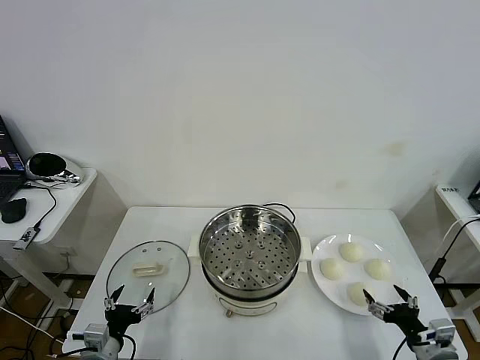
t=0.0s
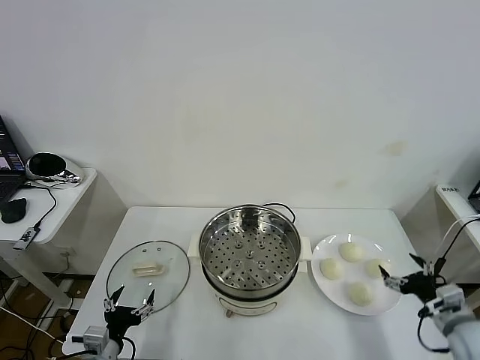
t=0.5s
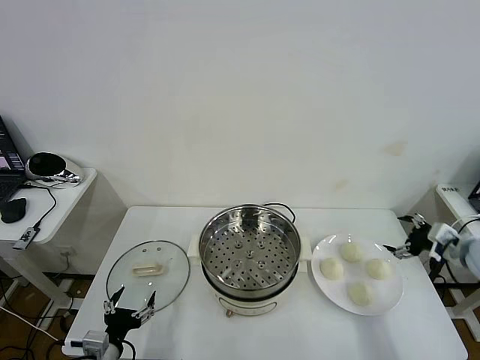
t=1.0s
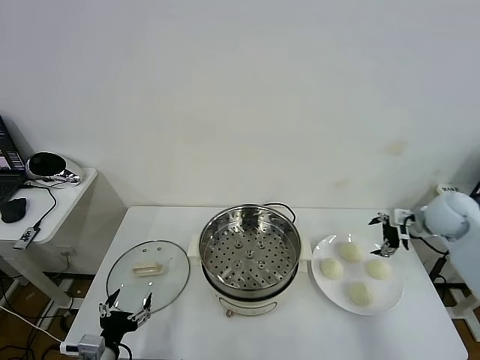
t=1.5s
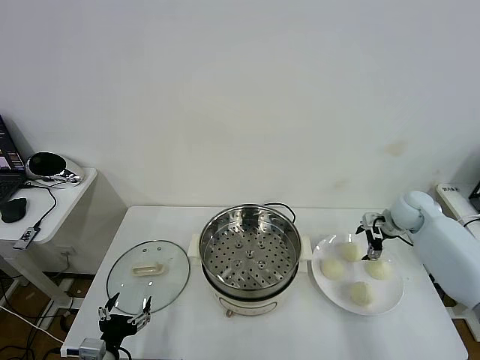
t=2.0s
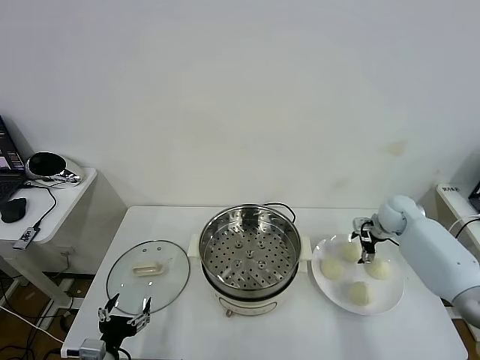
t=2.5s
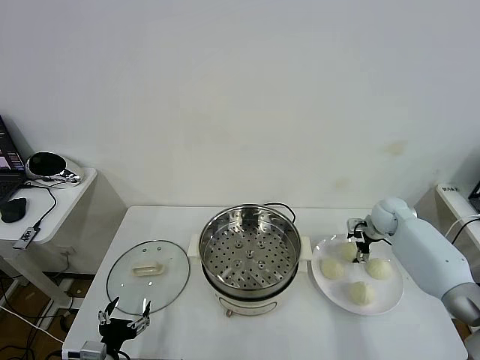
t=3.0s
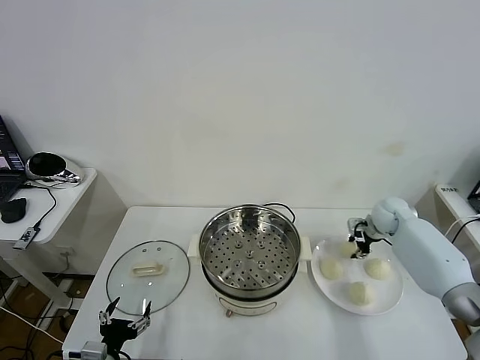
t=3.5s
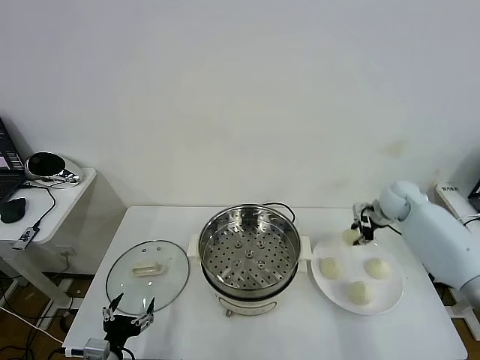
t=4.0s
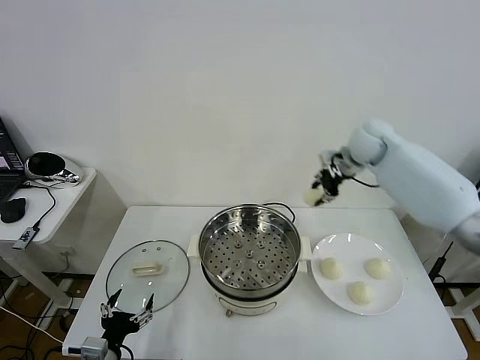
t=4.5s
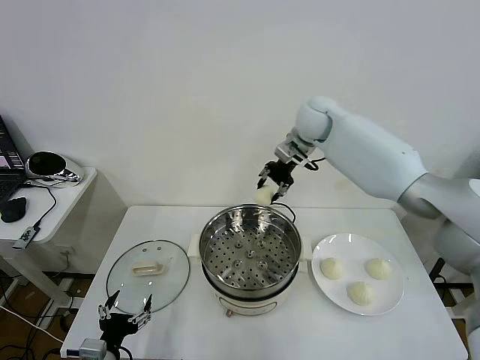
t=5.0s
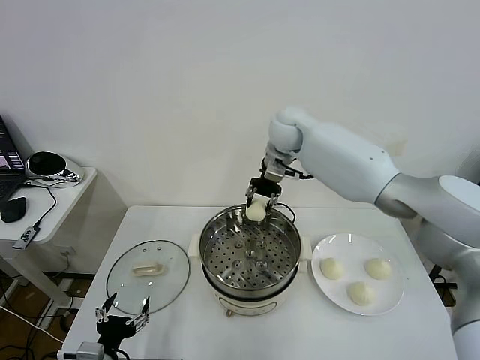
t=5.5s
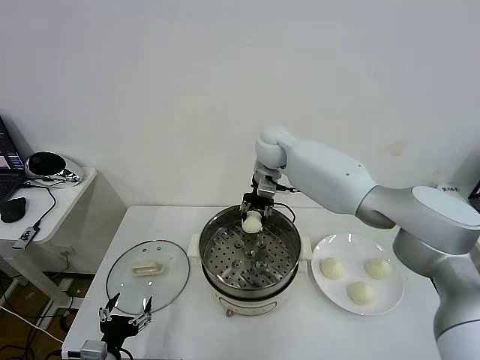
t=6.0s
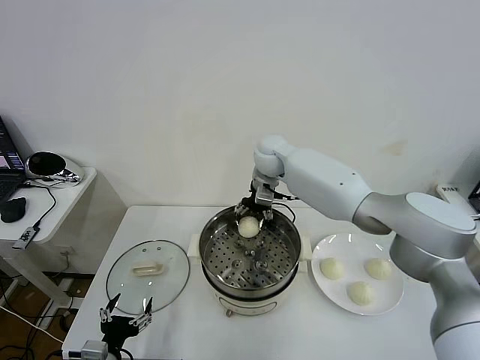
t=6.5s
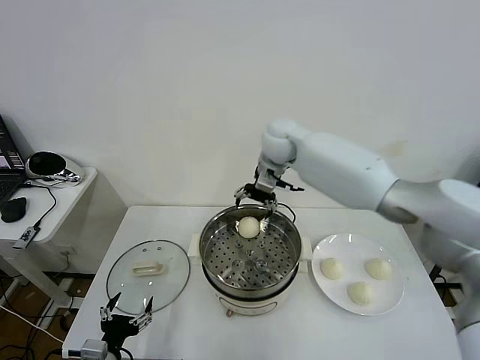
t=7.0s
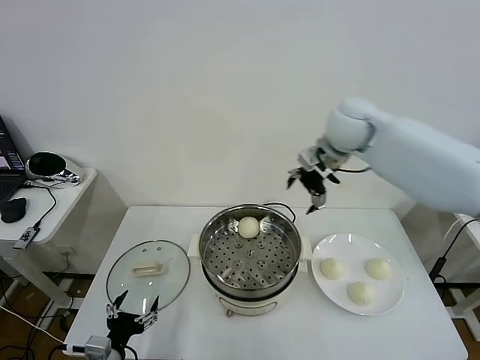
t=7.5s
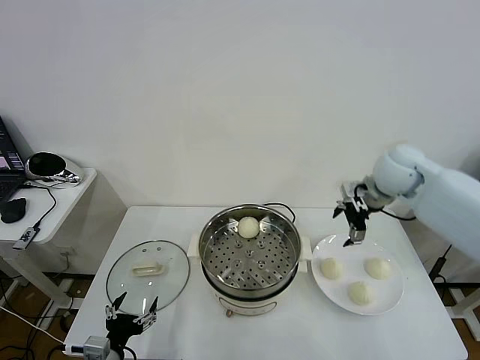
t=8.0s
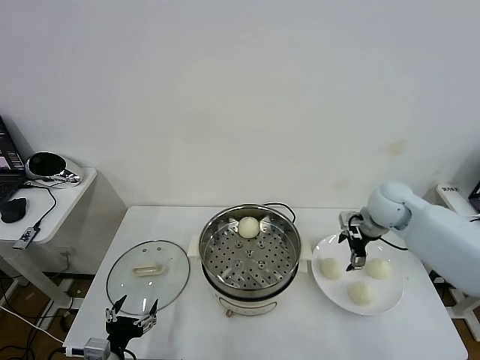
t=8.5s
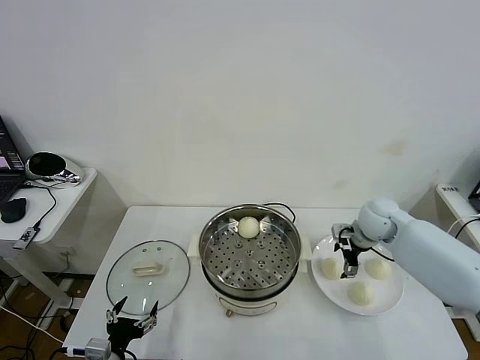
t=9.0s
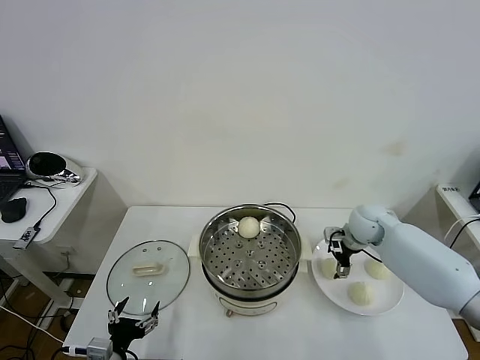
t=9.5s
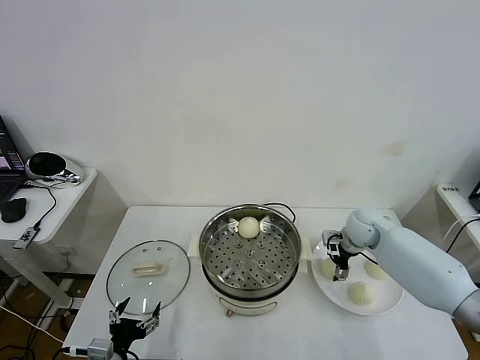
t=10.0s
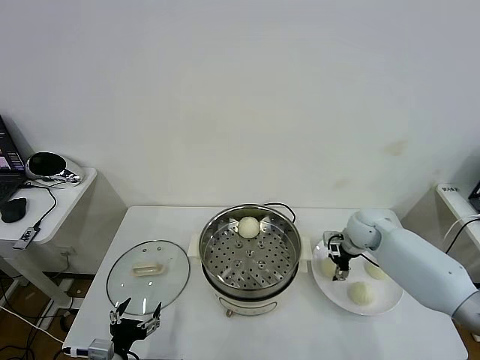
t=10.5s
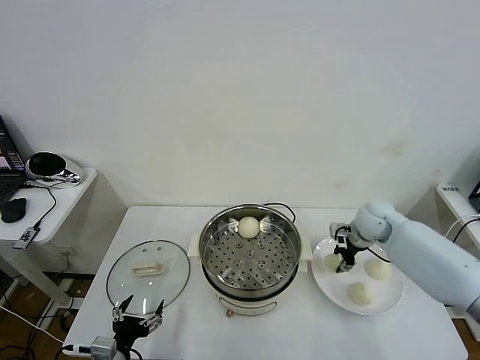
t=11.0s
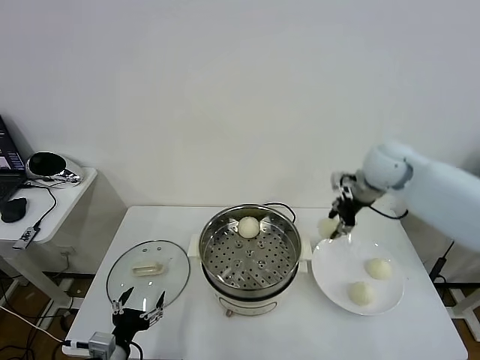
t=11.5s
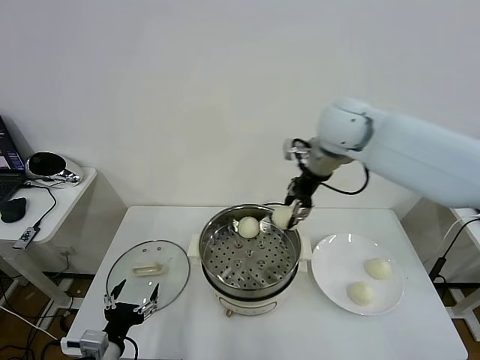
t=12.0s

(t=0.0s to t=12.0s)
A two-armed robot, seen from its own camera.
Task of the whole recording: take steamed baozi put them in steamer then cover it.
Step, t=0.0s - t=3.0s: Grasp the baozi in the plate with right gripper.
Step, t=4.0s - t=6.5s: Place the baozi on the steamer with right gripper.
Step, t=7.0s - t=10.5s: Grasp the baozi in the plate with right gripper.
t=2.0s - t=4.0s: The right gripper goes some 5 cm upward, and closes up.
t=4.0s - t=6.0s: The right gripper is displaced to the left by approximately 30 cm.
t=6.0s - t=8.0s: The right gripper heads to the right and backward, covering some 30 cm, and opens.
t=8.0s - t=10.0s: The right gripper heads downward, covering approximately 15 cm.
t=10.0s - t=12.0s: The right gripper moves upward and to the left, approximately 30 cm, and closes.

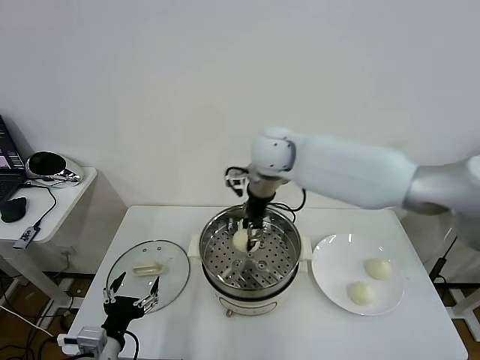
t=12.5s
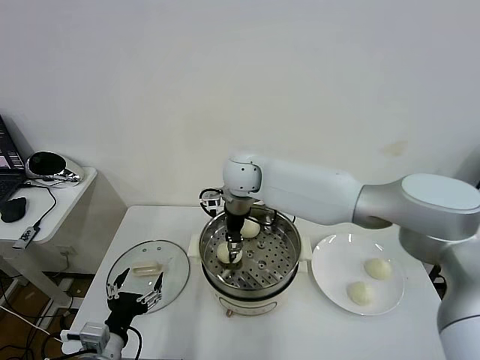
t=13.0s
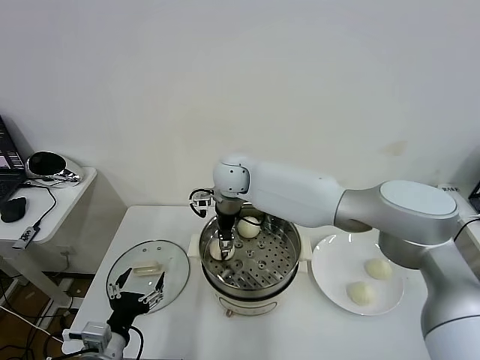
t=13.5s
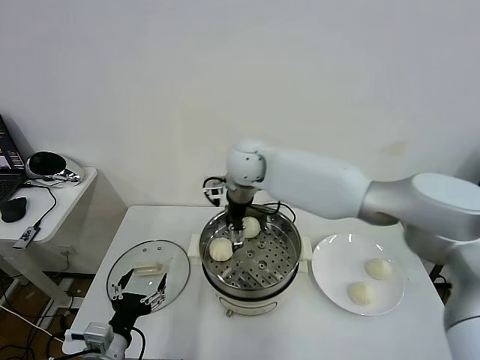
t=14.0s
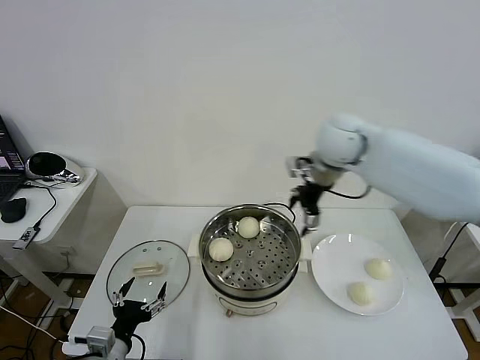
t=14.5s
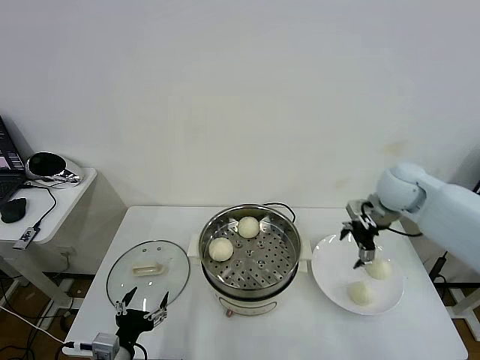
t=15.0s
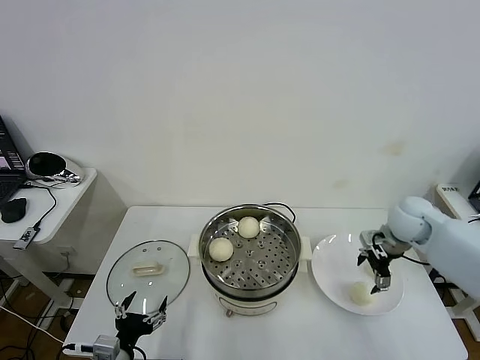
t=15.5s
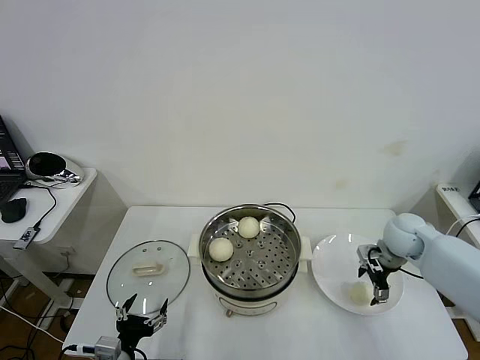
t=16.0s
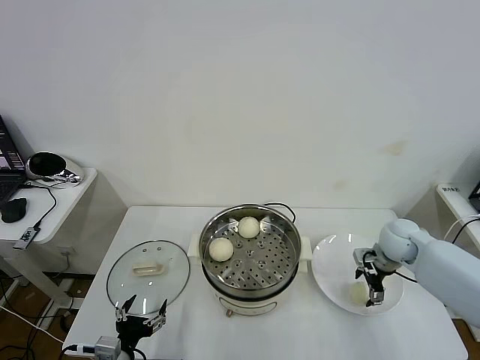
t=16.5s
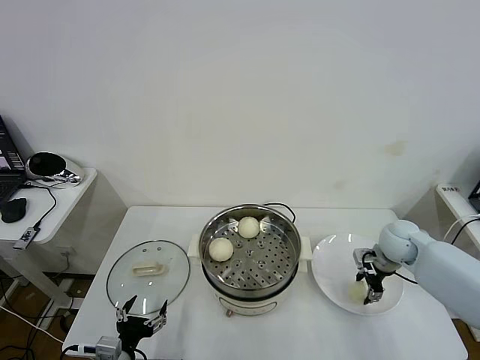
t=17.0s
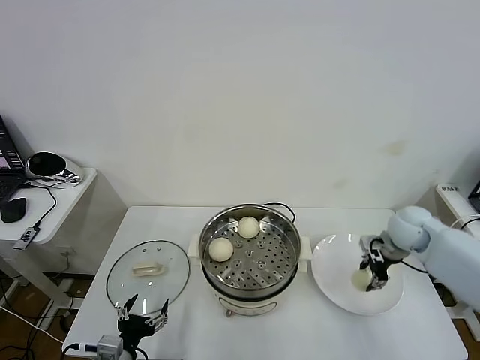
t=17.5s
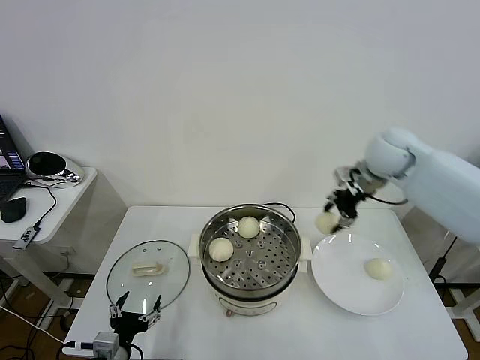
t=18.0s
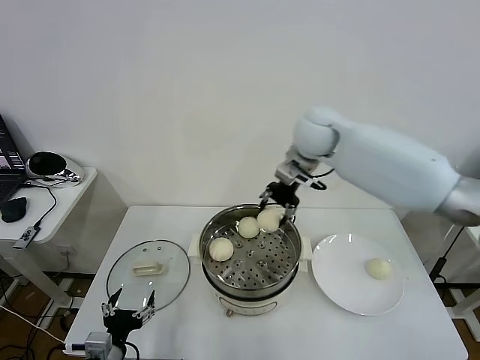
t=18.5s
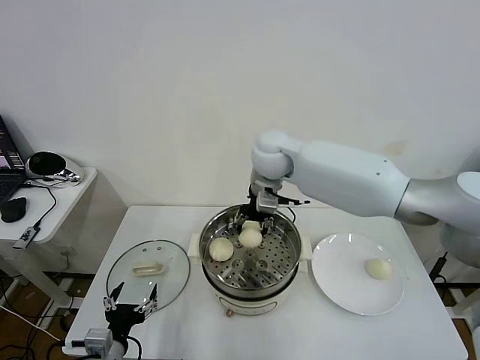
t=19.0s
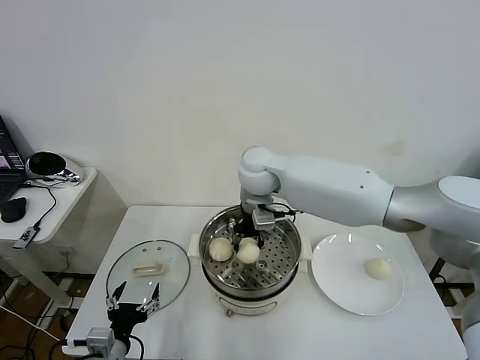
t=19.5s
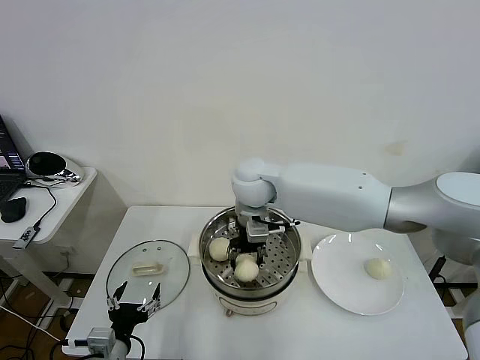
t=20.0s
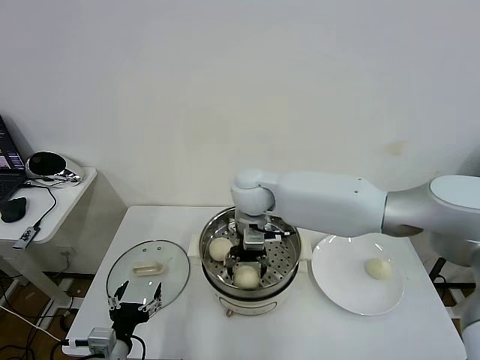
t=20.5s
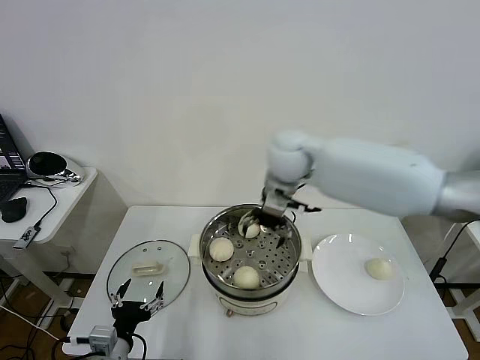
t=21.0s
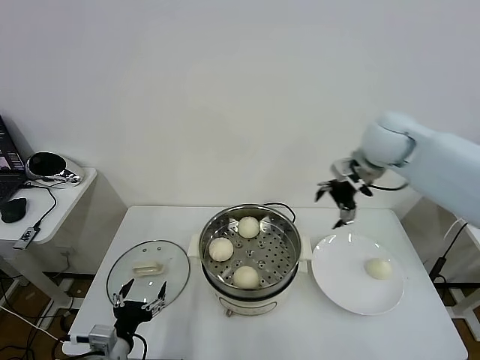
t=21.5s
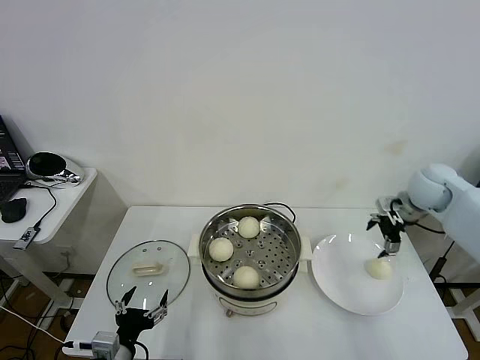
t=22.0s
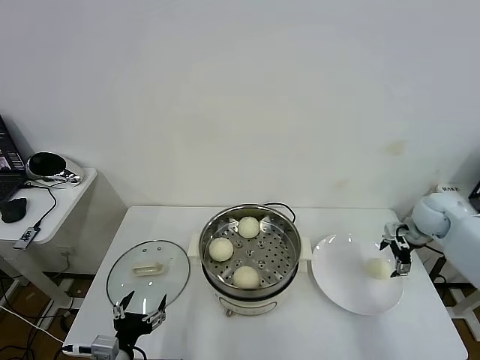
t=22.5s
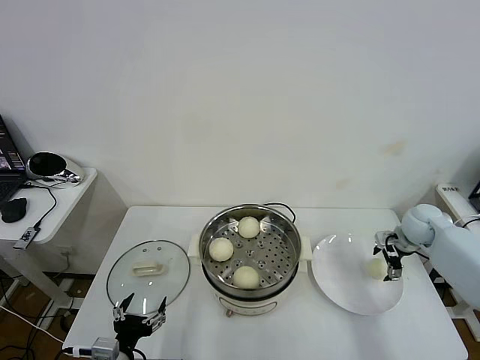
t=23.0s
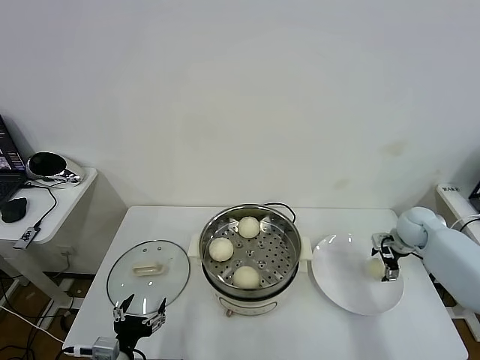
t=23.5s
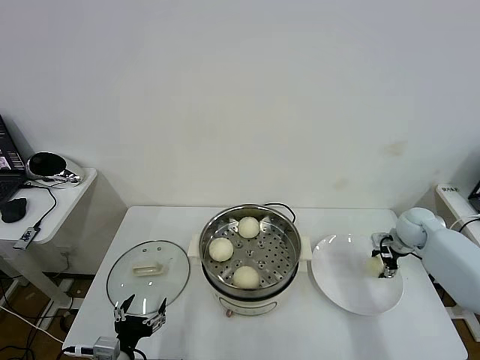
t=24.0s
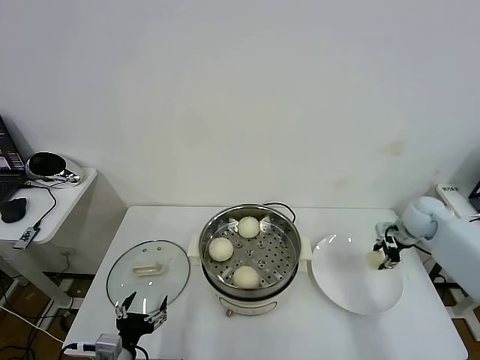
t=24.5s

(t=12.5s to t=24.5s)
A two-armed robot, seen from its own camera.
Task of the whole recording: take steamed baozi put them in steamer then cover it.
Step, t=14.0s - t=17.0s: Grasp the baozi in the plate with right gripper.
Step, t=17.5s - t=20.5s: Place the baozi on the steamer with right gripper.
Step, t=21.0s - t=24.0s: Grasp the baozi in the plate with right gripper.
t=12.5s - t=14.5s: The right gripper travels to the right by approximately 20 cm, and opens up.
t=14.5s - t=16.5s: The right gripper goes about 30 cm downward and to the right.
t=16.5s - t=18.5s: The right gripper heads to the left, upward and forward, covering some 35 cm, and closes its fingers.
t=18.5s - t=20.5s: The right gripper moves to the left, downward and backward, approximately 15 cm, and opens up.
t=20.5s - t=22.5s: The right gripper shifts approximately 40 cm to the right.
t=22.5s - t=24.5s: The right gripper closes up.

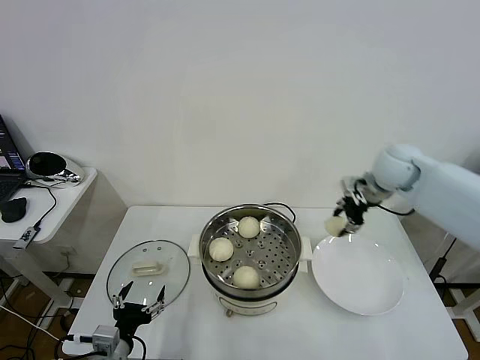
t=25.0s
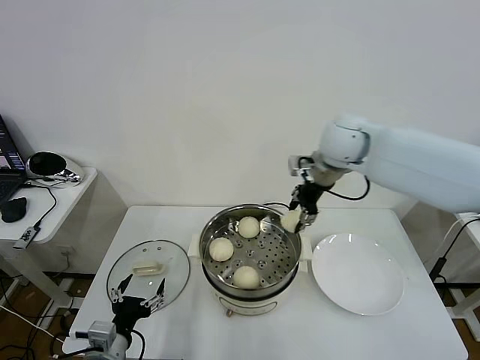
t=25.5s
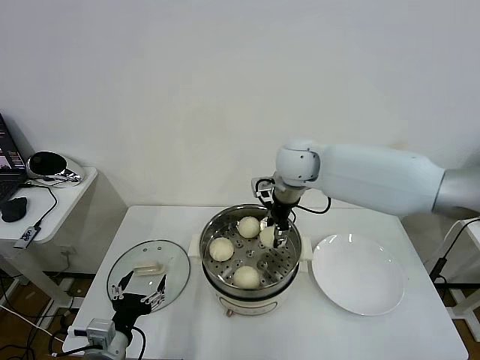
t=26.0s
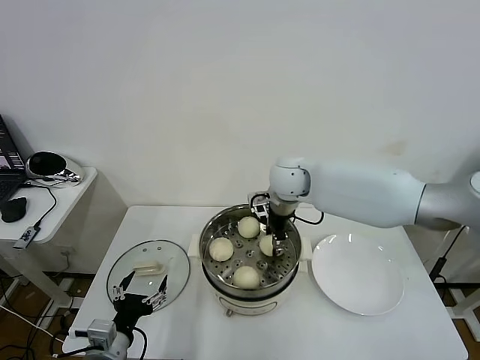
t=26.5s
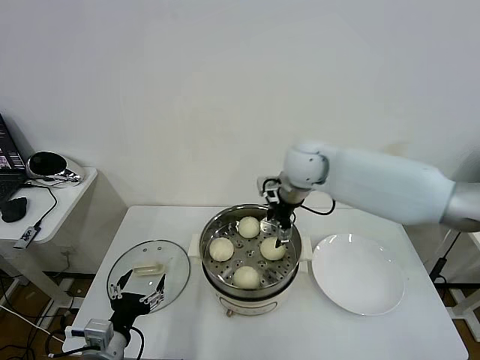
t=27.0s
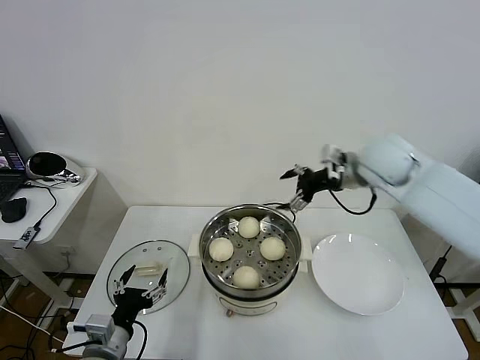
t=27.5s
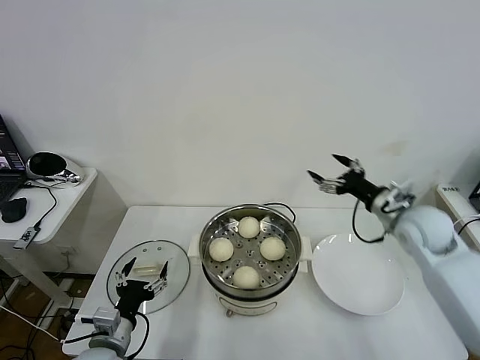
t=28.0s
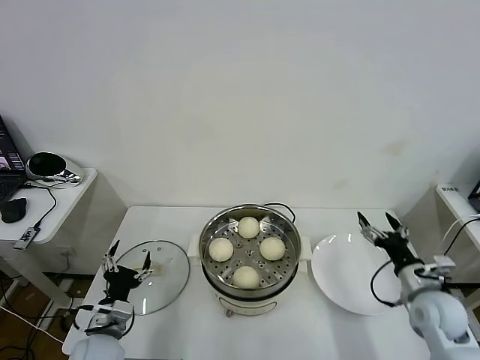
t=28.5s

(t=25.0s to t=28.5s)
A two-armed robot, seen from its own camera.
Task of the whole recording: take steamed baozi put them in steamer then cover it.
Step, t=25.0s - t=26.5s: Place the baozi on the steamer with right gripper.
t=25.0s - t=27.0s: The right gripper goes roughly 20 cm to the left, and opens.
t=27.0s - t=28.5s: The left gripper shifts about 5 cm forward. The right gripper shifts about 40 cm to the right, backward and downward.
